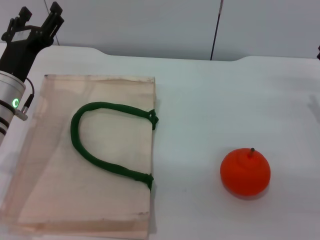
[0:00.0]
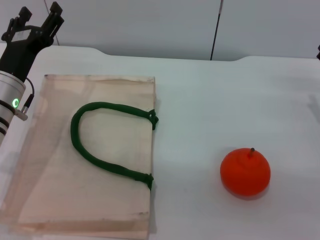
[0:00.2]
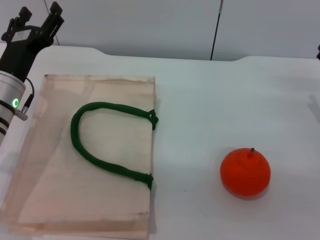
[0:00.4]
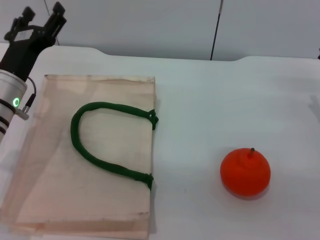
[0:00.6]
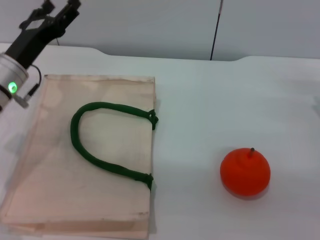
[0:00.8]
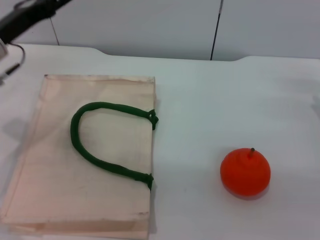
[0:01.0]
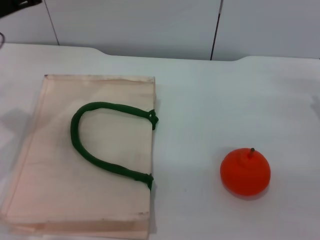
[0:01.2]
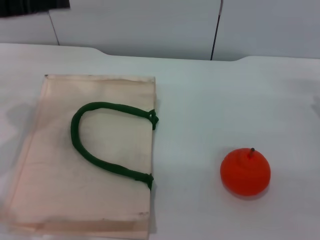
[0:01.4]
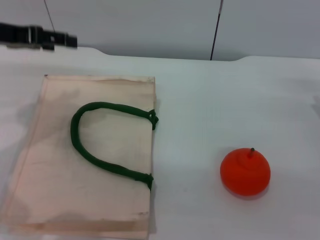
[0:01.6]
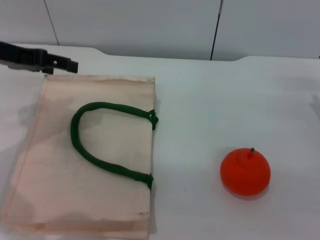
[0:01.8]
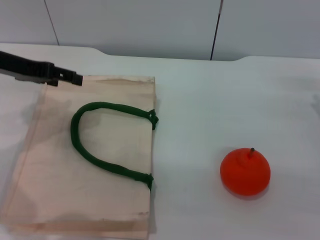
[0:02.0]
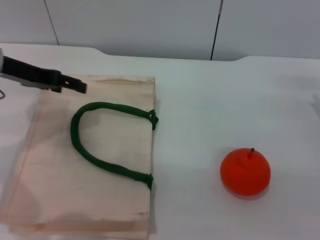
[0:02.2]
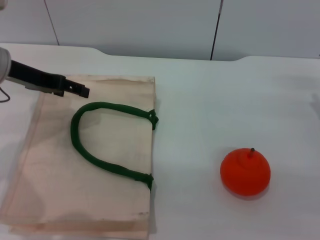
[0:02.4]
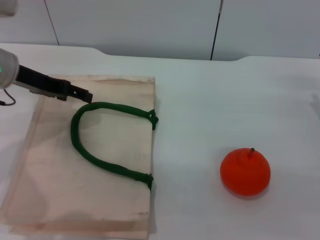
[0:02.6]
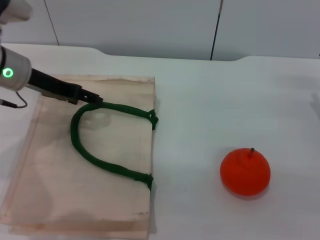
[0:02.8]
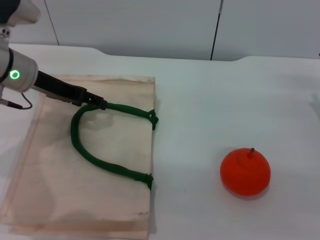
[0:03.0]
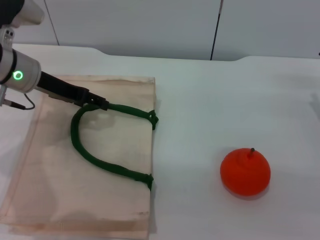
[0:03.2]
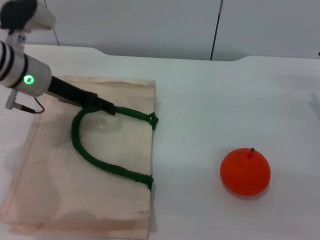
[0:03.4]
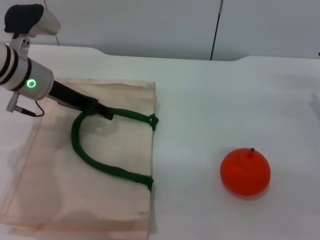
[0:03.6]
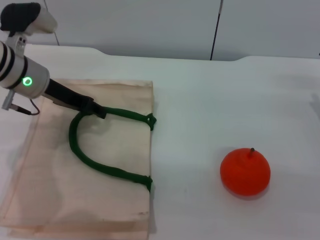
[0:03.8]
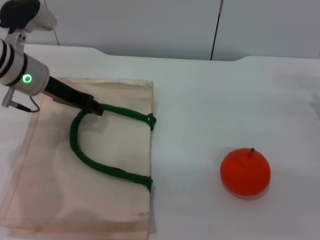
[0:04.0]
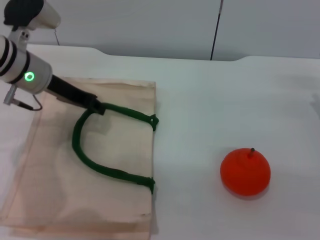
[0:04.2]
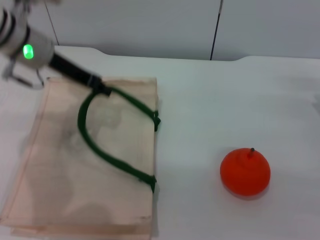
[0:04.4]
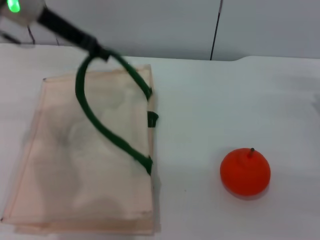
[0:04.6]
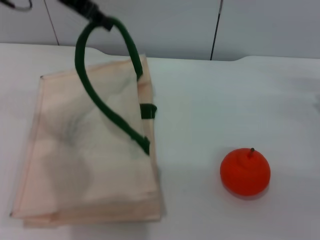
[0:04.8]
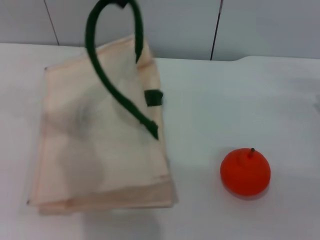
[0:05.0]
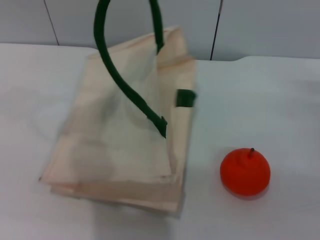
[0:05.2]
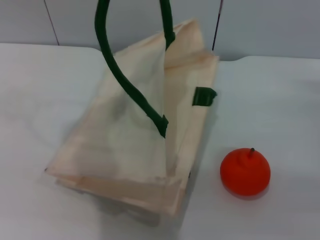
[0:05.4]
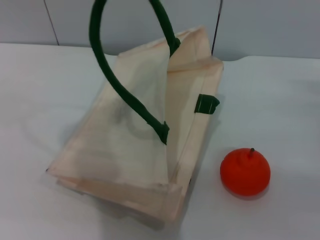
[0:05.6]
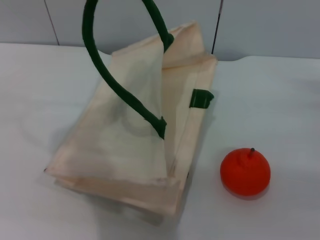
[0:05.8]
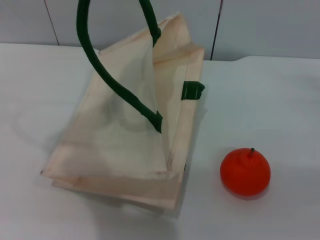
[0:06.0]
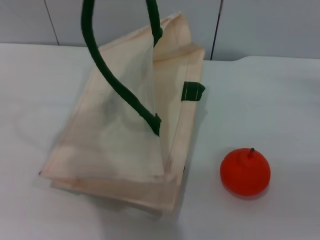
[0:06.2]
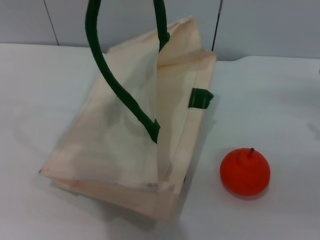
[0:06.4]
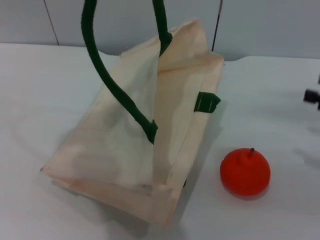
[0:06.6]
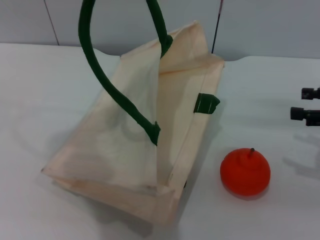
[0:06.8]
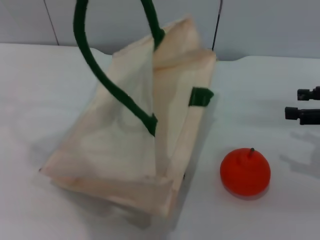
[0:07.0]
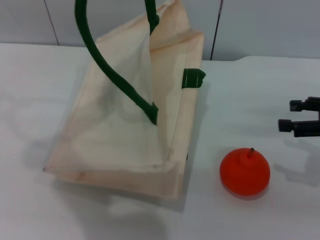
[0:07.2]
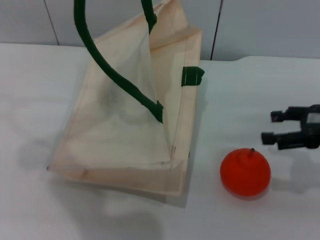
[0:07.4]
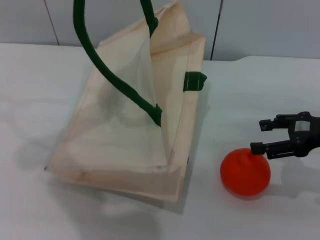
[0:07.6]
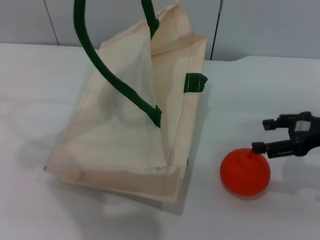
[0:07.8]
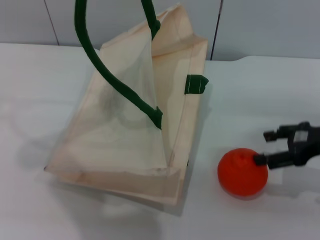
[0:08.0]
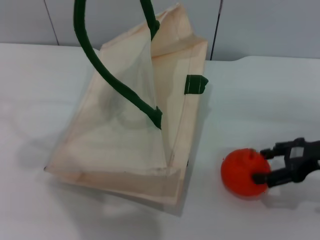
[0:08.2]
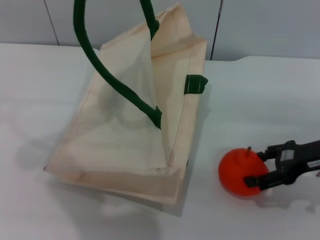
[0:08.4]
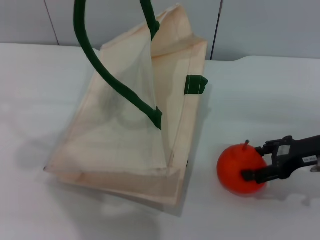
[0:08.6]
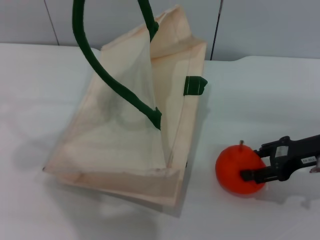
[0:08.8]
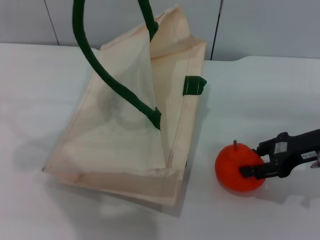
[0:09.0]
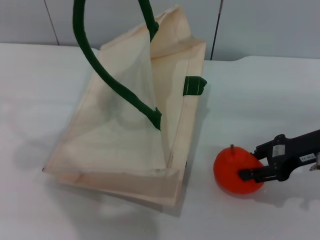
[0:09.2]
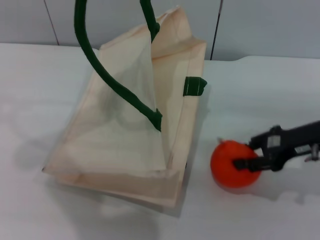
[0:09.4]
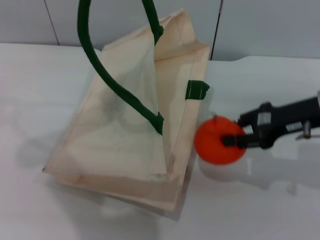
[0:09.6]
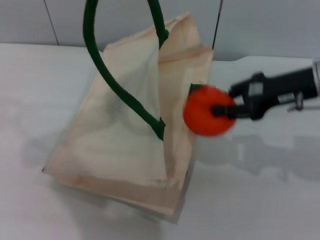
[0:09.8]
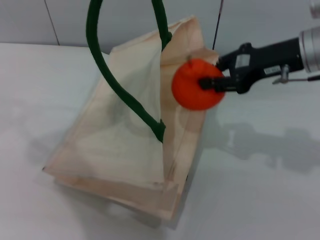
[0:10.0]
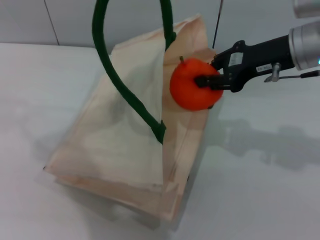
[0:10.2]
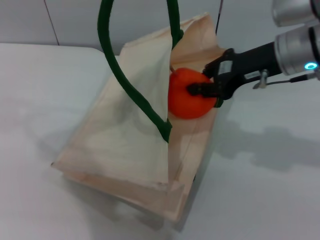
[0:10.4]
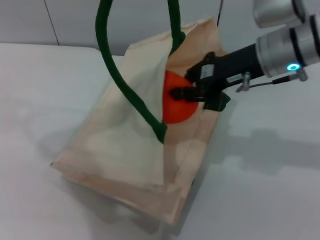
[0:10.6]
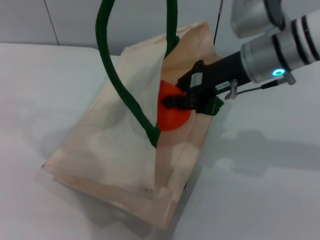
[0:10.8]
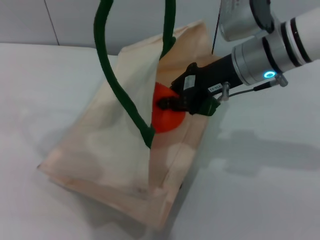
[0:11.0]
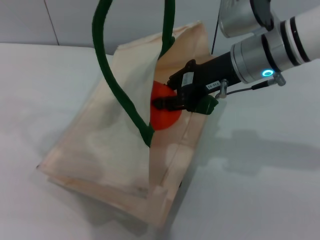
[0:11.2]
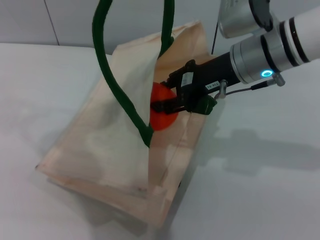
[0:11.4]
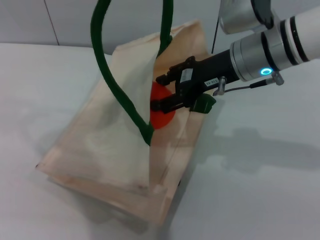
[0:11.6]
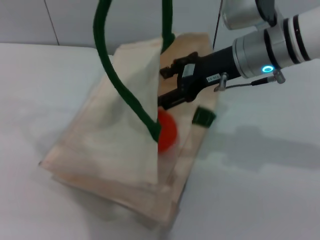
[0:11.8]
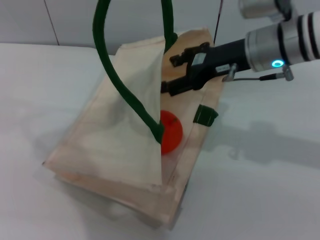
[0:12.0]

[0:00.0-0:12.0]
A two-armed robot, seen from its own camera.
Task of the whole recording: pick up the orange from the table and place it in the white handbag.
Step, 0:00.0 to 0:06.2: Lift the woven bag with the left gripper to open it.
Step, 0:06.4 to 0:09.4: Pick up the orange with the right gripper.
0:00.0 to 0:01.6: The left gripper goes about 15 cm upward and to the left.
0:01.6 to 0:03.0: The left gripper heads downward and to the right, covering roughly 10 cm.
0:03.0 to 0:04.4: The left gripper closes its fingers.
0:04.4 to 0:06.0: The right gripper travels to the right by approximately 5 cm. Meanwhile the left gripper goes about 20 cm upward.
0:06.0 to 0:07.6: The right gripper goes roughly 5 cm to the left.
0:07.6 to 0:09.0: The grippers make only small movements.
0:09.0 to 0:10.4: The right gripper goes some 15 cm to the left, upward and forward, and closes up.
0:10.4 to 0:12.0: The right gripper opens its fingers.

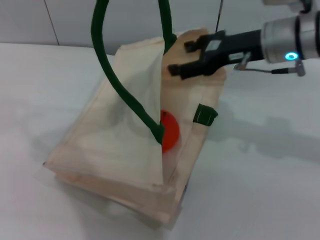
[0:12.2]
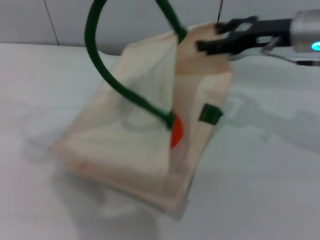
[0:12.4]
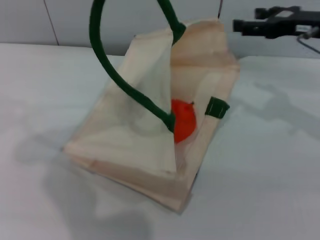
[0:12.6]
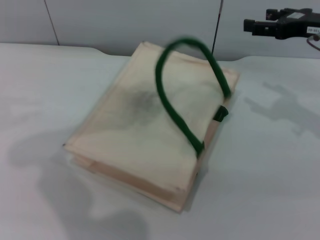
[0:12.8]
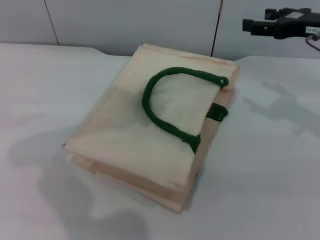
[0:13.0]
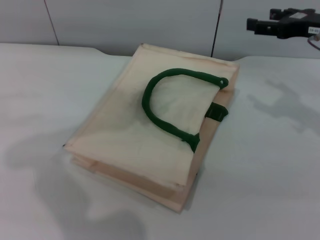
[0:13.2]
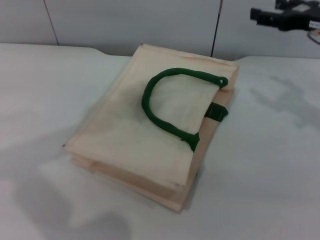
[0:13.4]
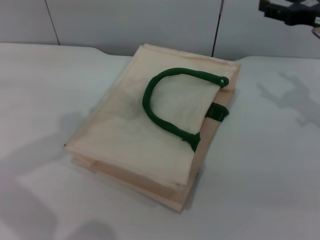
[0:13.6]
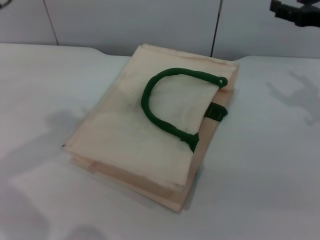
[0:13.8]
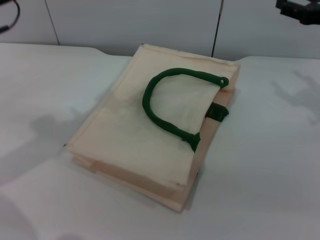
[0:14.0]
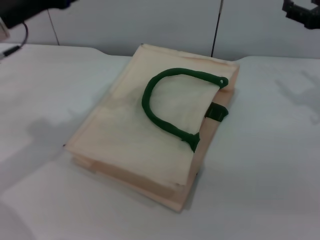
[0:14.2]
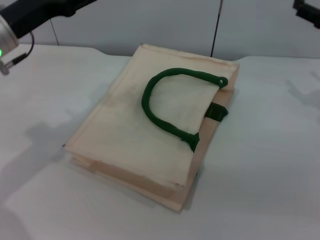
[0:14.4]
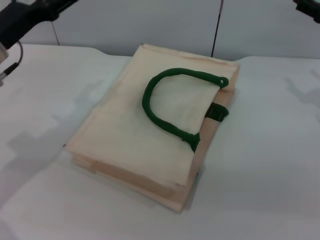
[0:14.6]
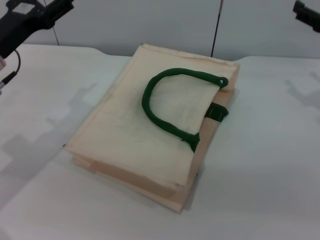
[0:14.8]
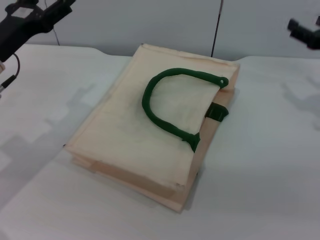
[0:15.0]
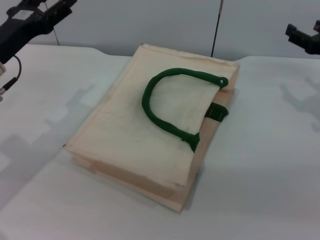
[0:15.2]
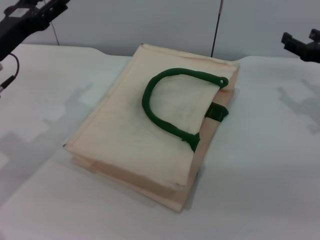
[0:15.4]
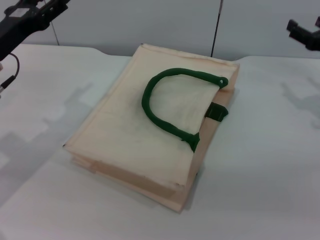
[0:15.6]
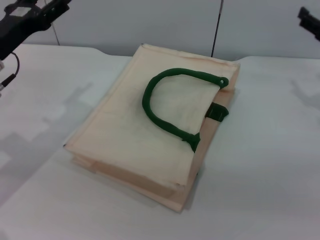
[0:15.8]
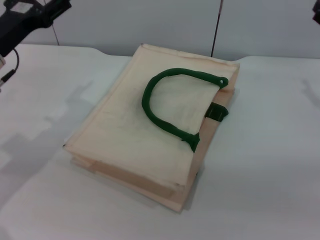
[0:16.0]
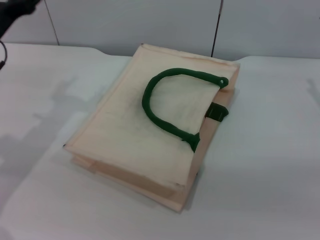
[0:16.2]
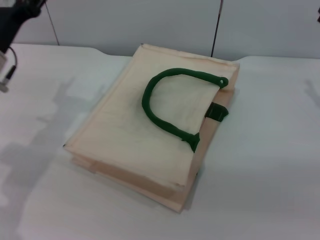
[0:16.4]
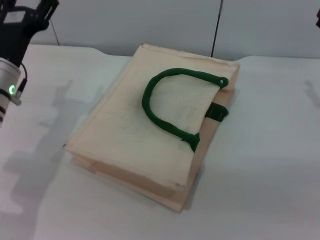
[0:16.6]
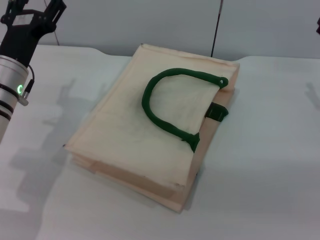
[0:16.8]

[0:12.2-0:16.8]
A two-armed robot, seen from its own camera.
Task of the whole recording: pick up the orange from the table and place it in the white handbag.
Step, 0:12.6 to 0:14.8: Lower the woven bag with the left gripper to close it.
0:12.2 to 0:13.8: The left gripper shifts about 10 cm downward and to the left, and opens up. The right gripper goes roughly 15 cm to the right.
0:13.8 to 0:15.2: The right gripper heads downward, covering some 5 cm; the left gripper is displaced downward by approximately 15 cm.
0:15.2 to 0:16.8: The left gripper shifts by roughly 5 cm.
